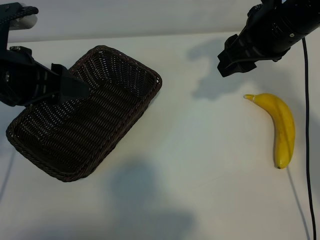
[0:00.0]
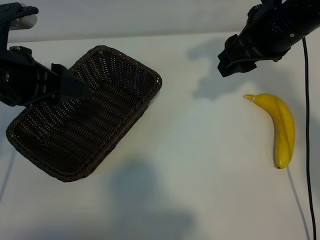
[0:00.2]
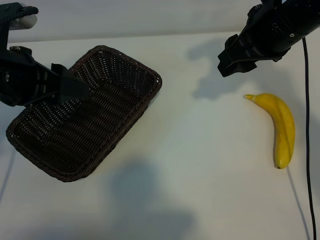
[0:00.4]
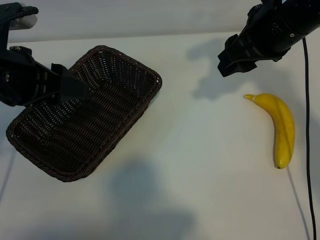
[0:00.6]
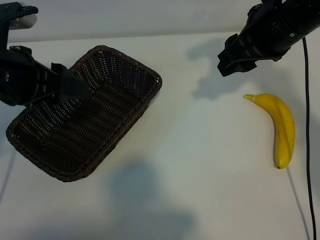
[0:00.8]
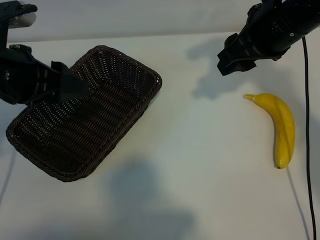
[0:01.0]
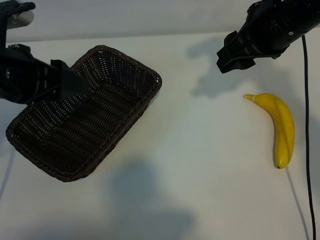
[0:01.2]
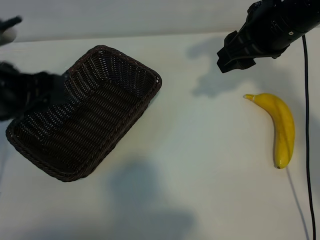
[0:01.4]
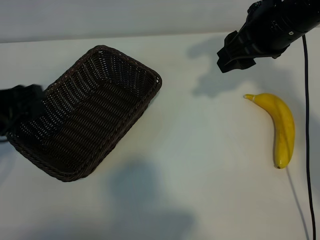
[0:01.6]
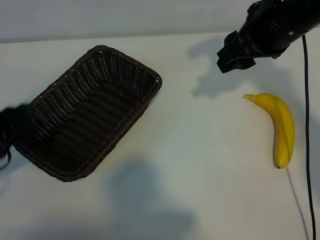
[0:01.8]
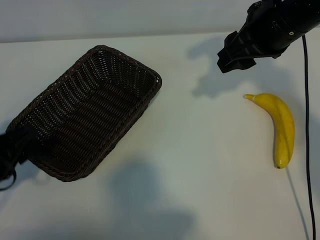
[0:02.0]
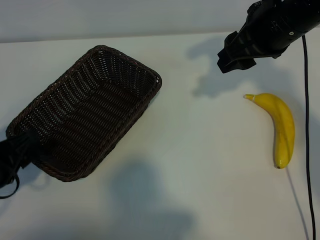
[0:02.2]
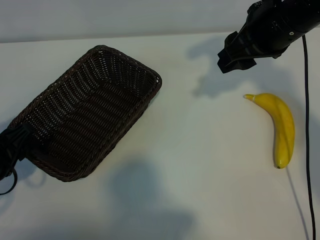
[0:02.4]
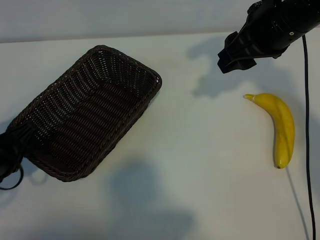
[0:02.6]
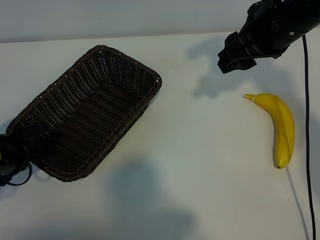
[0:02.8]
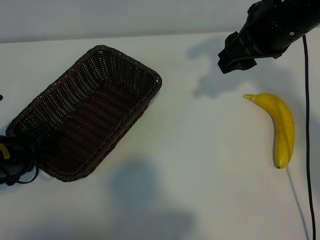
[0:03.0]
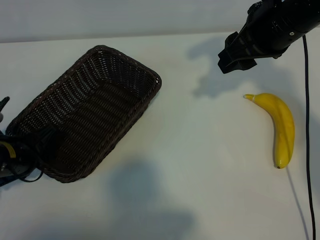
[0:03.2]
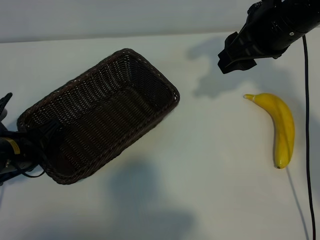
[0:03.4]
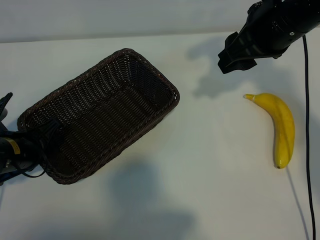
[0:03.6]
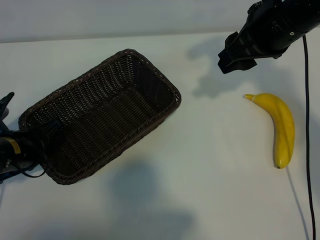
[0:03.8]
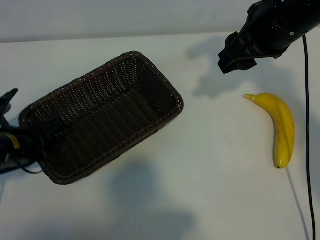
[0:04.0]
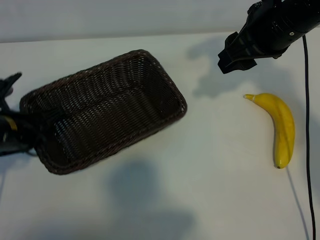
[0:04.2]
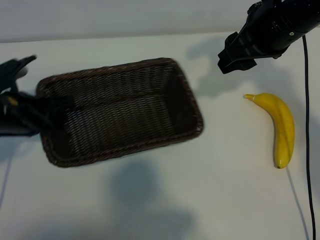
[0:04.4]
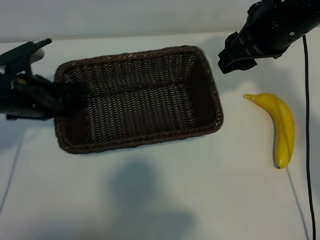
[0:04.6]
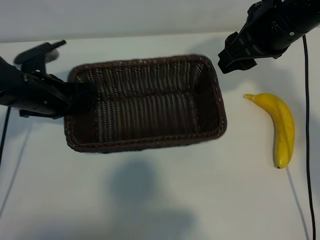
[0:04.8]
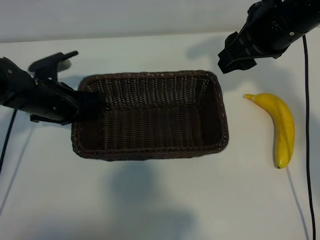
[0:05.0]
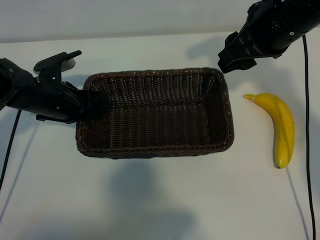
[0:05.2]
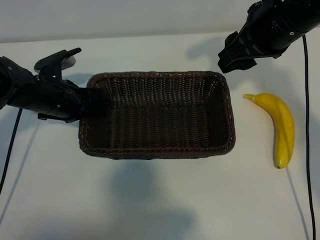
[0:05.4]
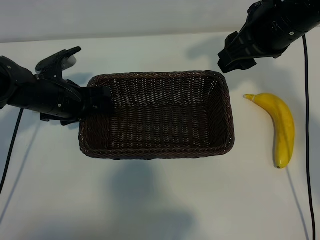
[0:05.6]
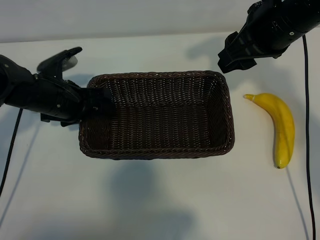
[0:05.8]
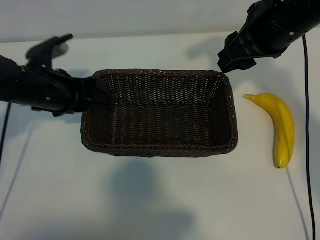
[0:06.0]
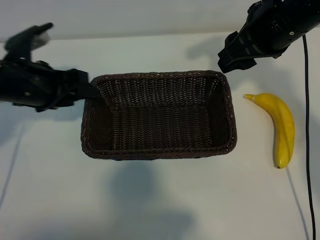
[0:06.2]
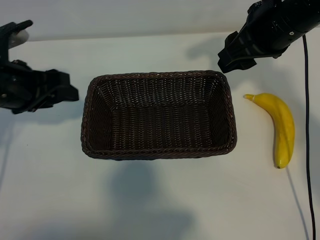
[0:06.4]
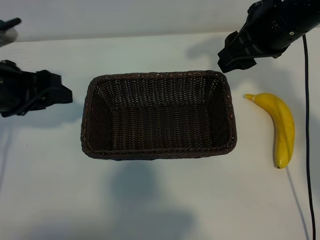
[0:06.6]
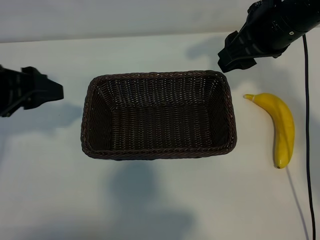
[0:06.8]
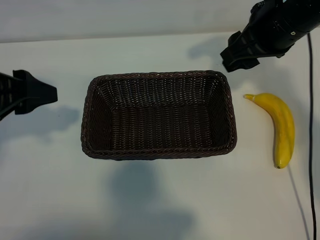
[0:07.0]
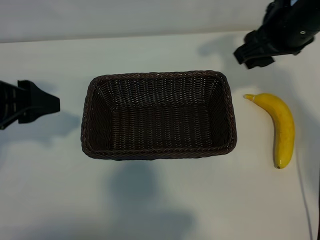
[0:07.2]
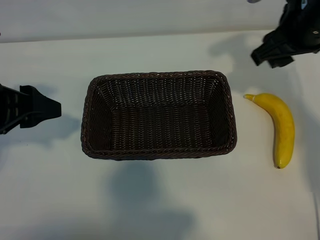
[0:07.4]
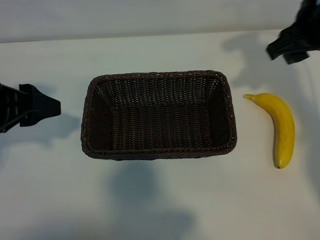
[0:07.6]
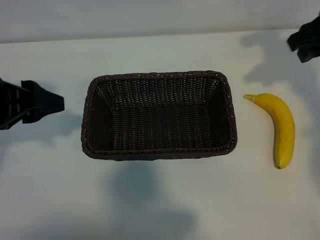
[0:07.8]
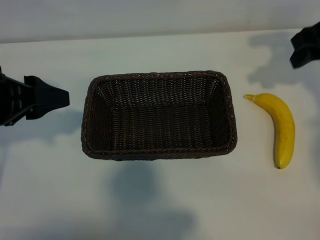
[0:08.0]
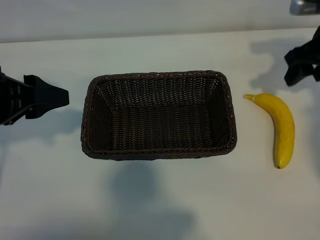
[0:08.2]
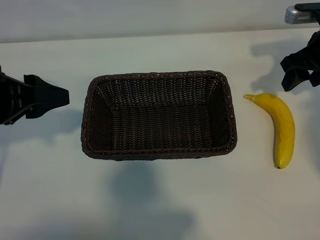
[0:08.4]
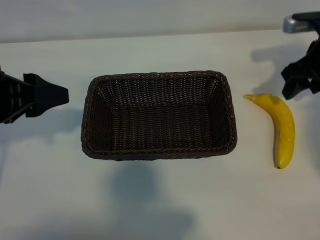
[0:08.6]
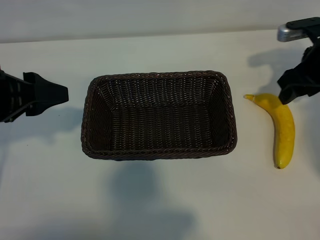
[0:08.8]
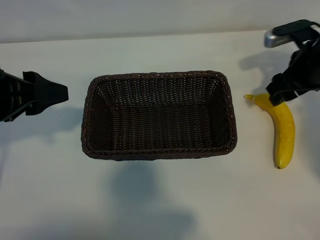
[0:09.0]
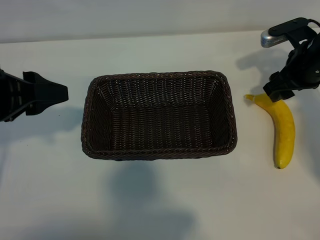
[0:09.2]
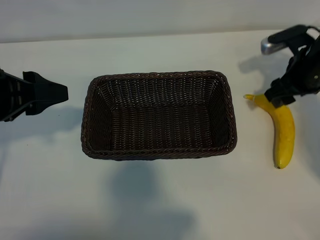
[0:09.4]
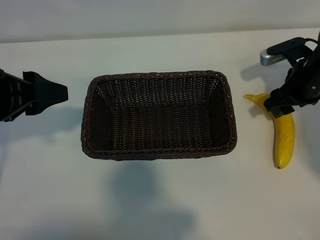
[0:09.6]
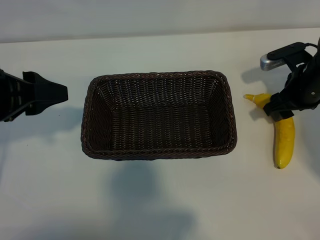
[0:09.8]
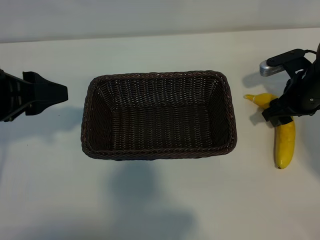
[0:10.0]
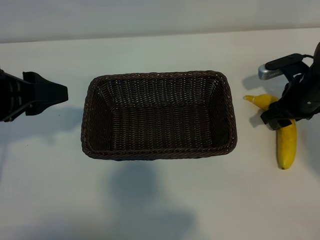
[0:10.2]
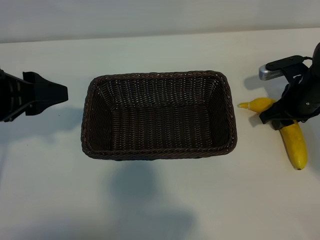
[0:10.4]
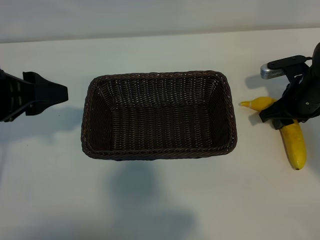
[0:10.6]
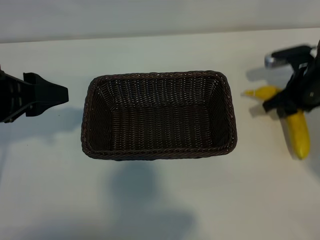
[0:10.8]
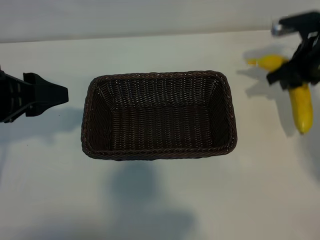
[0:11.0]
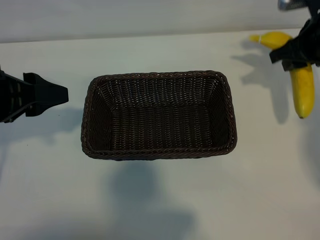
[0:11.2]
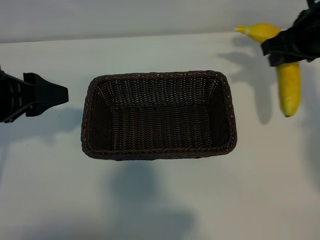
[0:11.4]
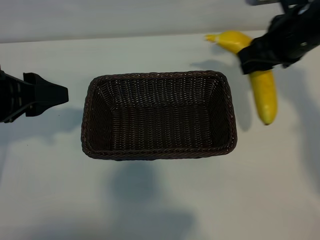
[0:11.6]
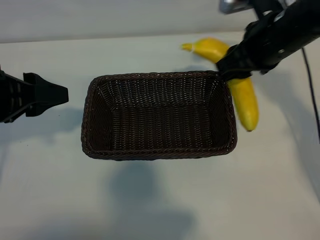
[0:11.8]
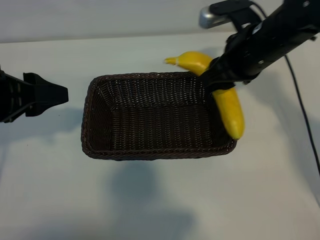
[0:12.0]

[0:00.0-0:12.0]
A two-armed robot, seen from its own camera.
Task of the whole recording: pick up the banana and put it into the basket.
Step, 0:00.8 to 0:03.4: Grasp the basket with the left gripper.
Step, 0:03.8 to 0:06.0: Place the basket in the center of the table with the left gripper.
Step, 0:06.2 to 0:10.4: Grasp the banana with right gripper.
